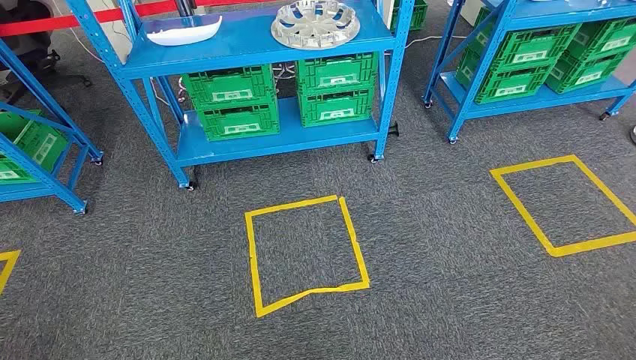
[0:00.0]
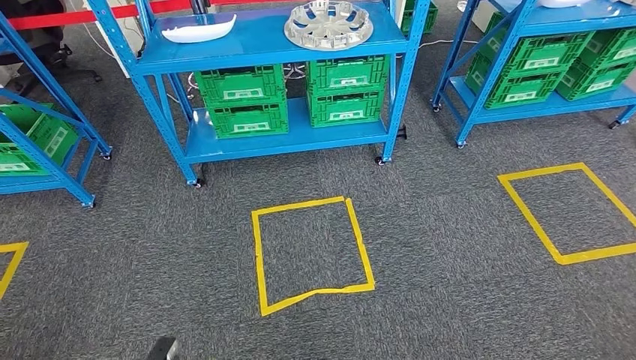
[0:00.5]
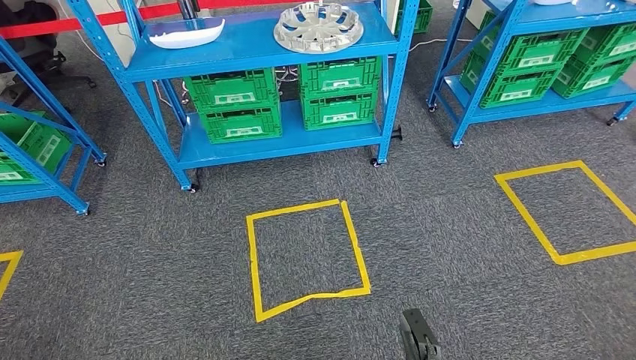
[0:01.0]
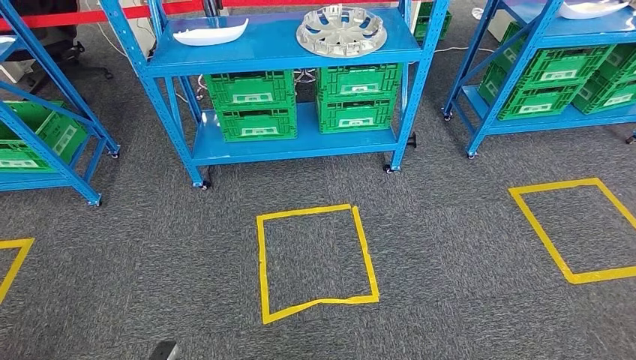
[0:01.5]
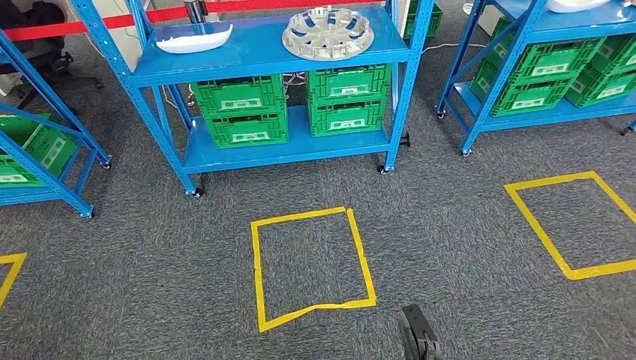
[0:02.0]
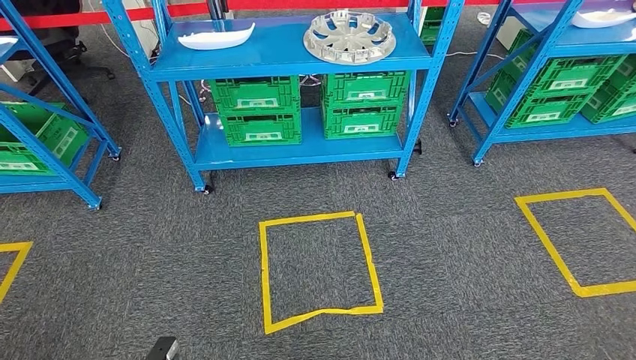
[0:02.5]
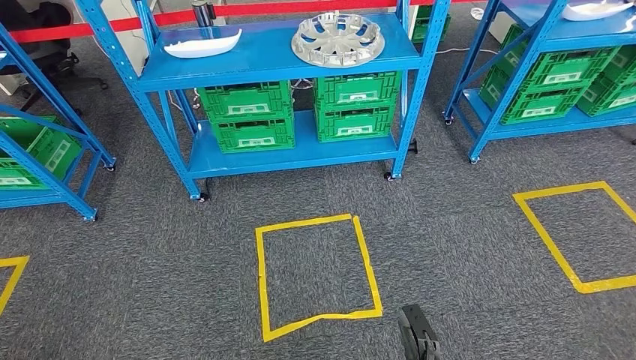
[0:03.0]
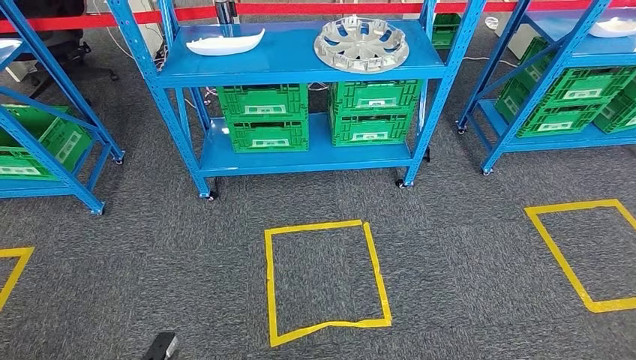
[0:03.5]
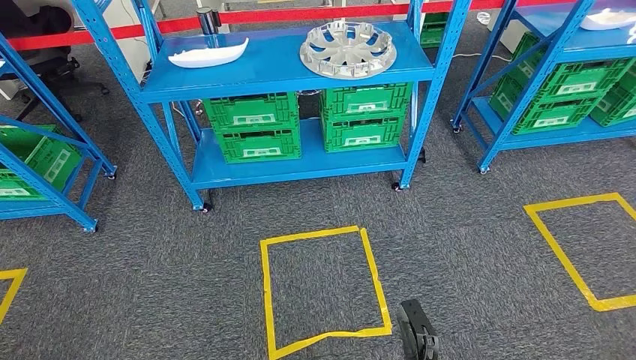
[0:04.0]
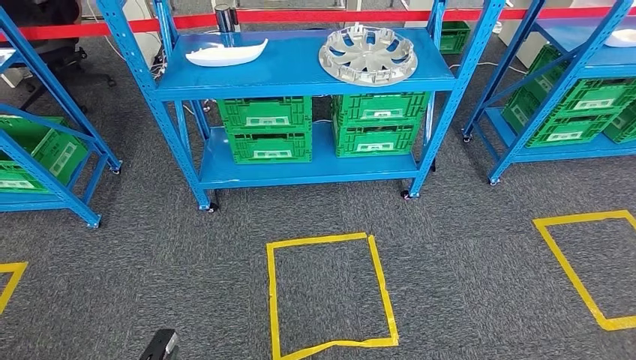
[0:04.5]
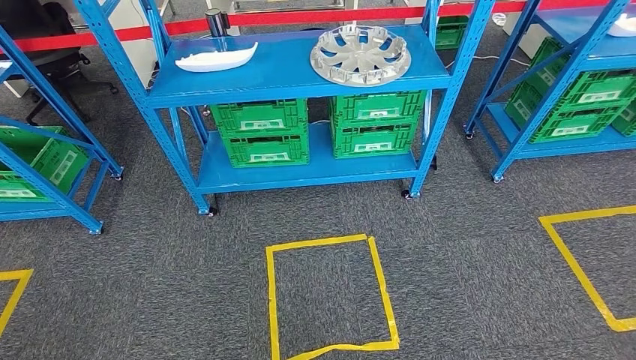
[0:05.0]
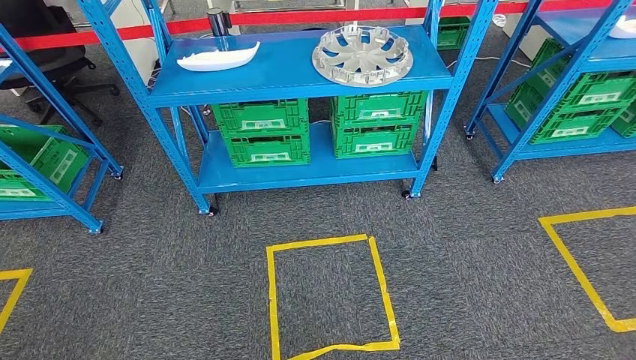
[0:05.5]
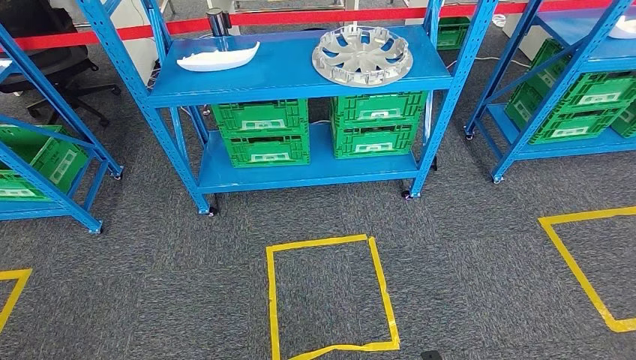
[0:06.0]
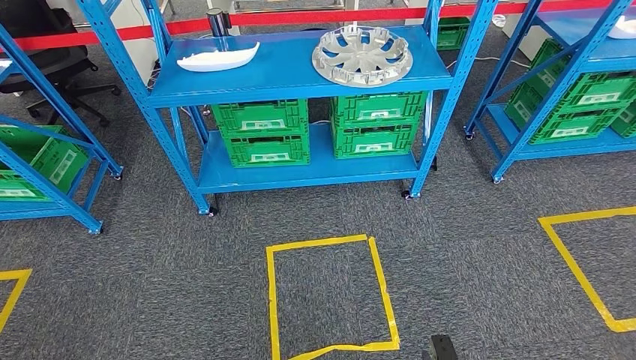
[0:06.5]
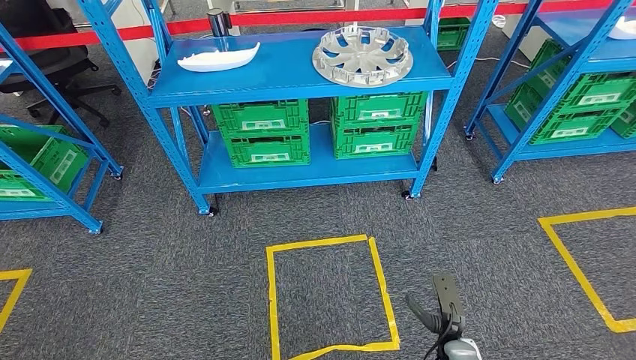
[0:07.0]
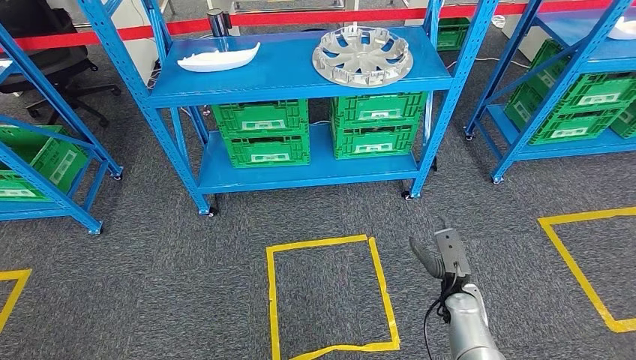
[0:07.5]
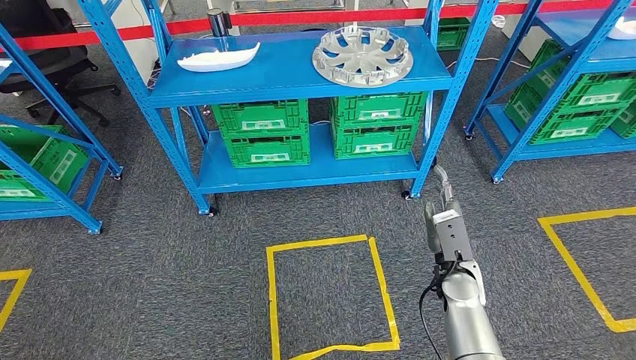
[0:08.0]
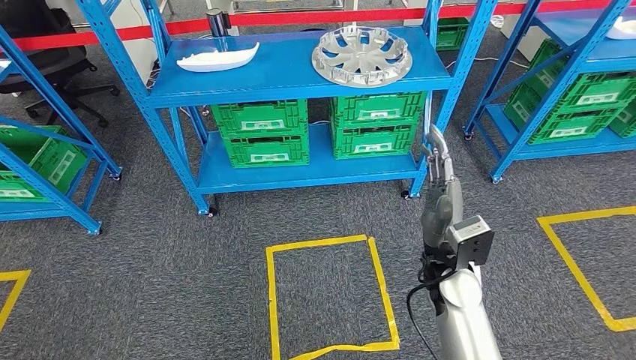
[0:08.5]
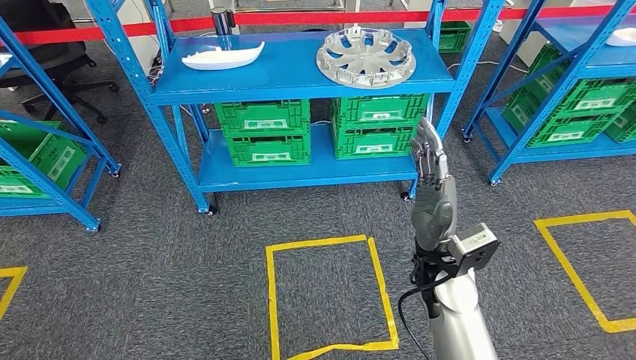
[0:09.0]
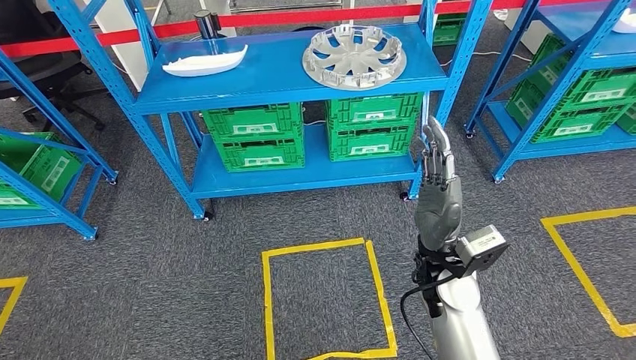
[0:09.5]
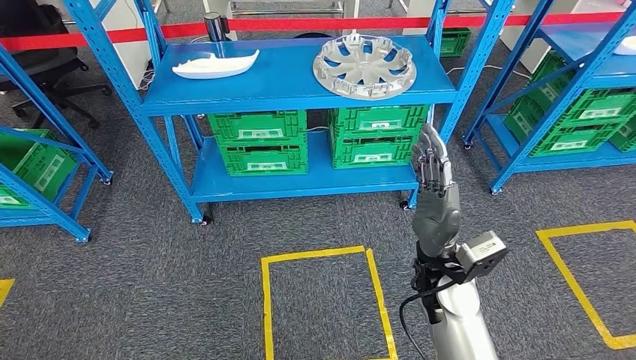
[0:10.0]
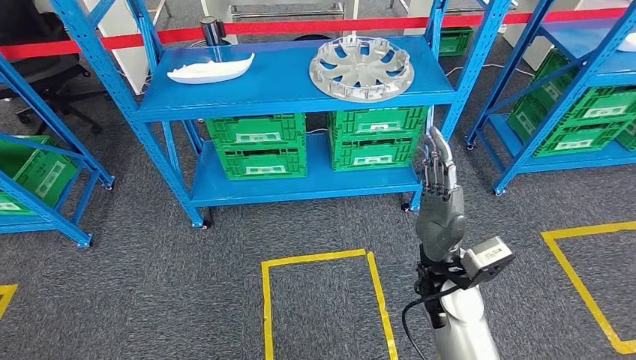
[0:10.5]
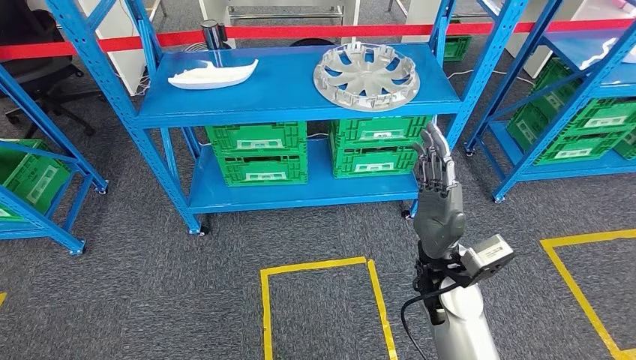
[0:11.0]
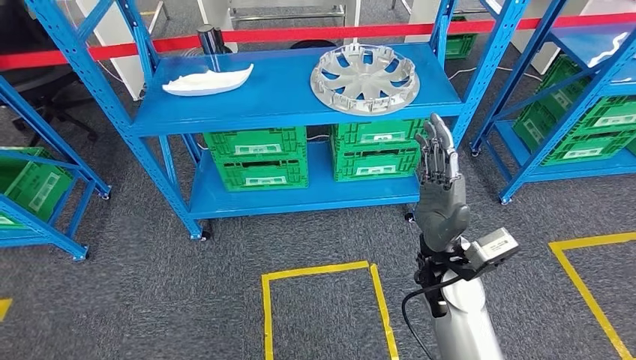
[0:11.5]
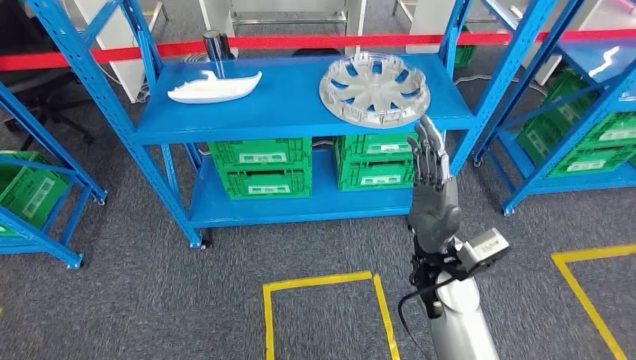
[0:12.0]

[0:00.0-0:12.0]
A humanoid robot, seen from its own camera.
0:06.0 to 0:08.0: The right hand moves forward and upward, about 30 cm.

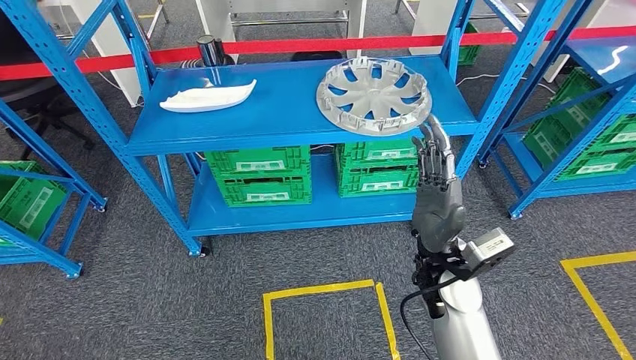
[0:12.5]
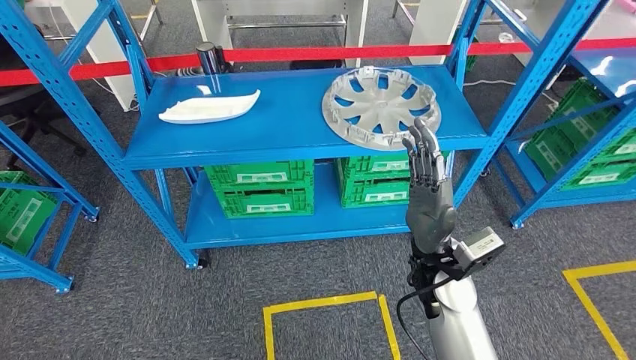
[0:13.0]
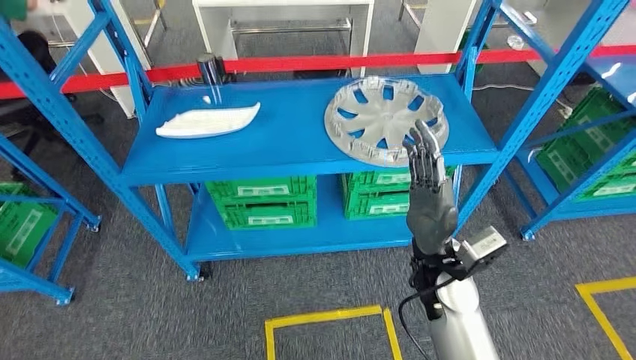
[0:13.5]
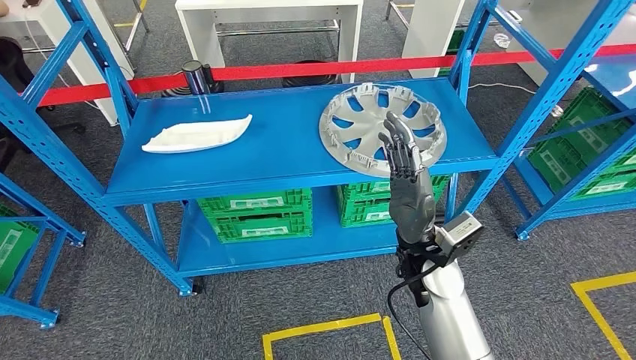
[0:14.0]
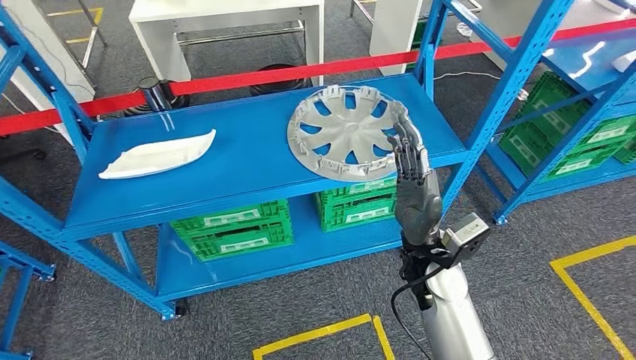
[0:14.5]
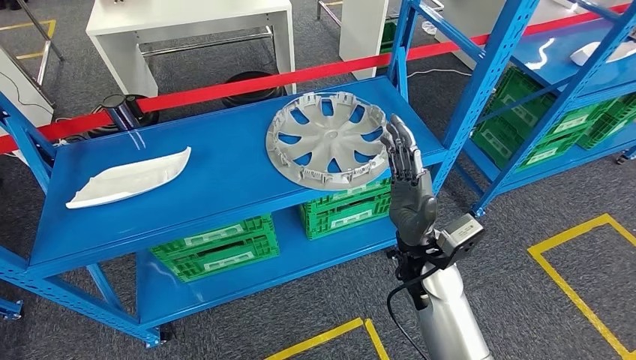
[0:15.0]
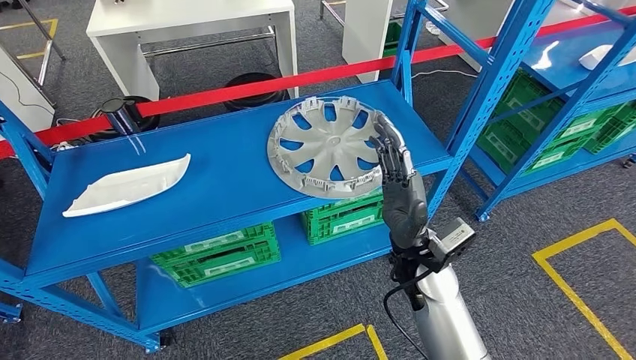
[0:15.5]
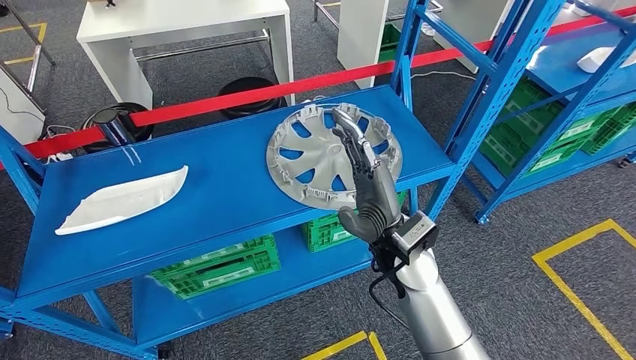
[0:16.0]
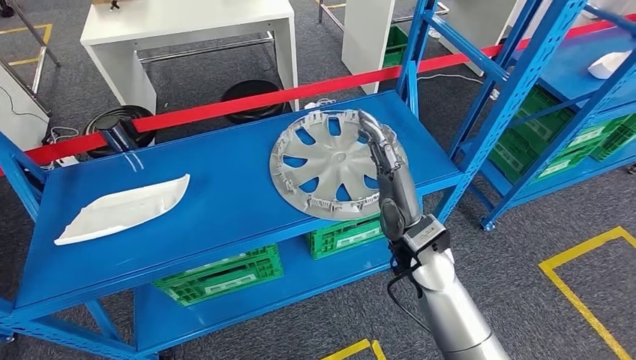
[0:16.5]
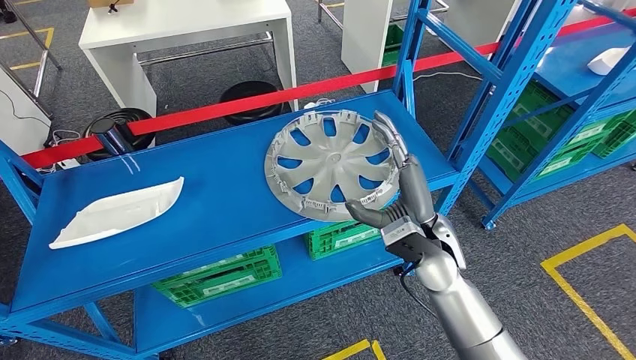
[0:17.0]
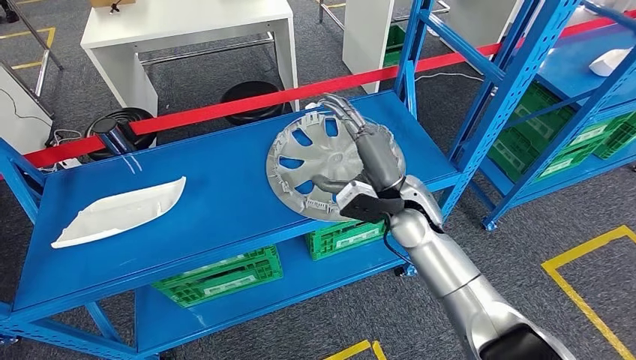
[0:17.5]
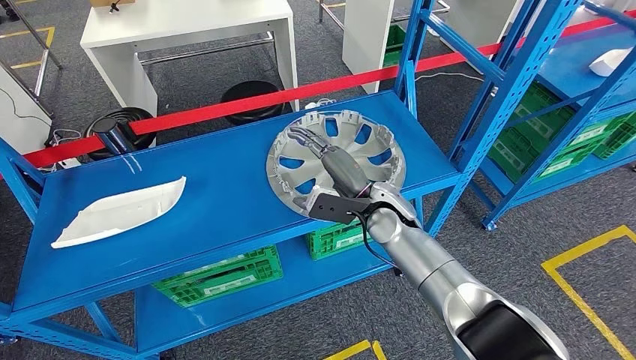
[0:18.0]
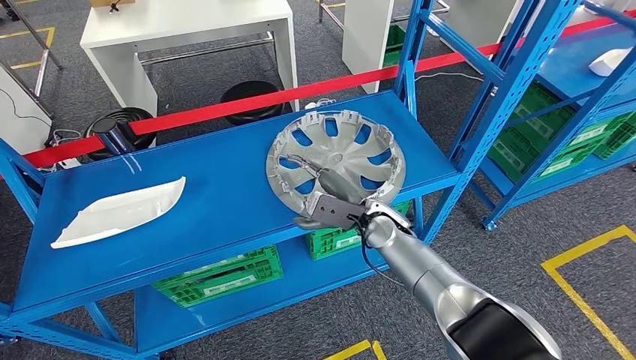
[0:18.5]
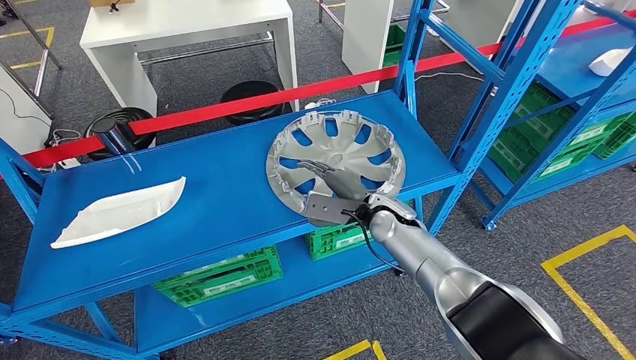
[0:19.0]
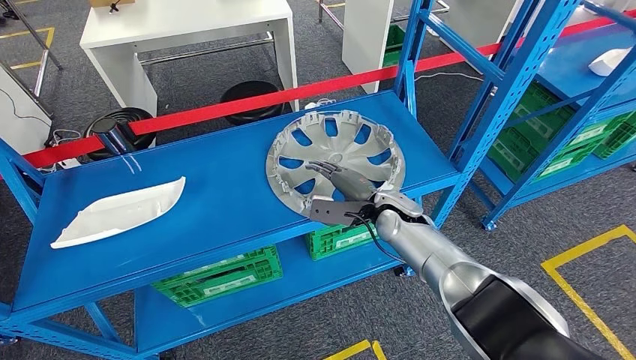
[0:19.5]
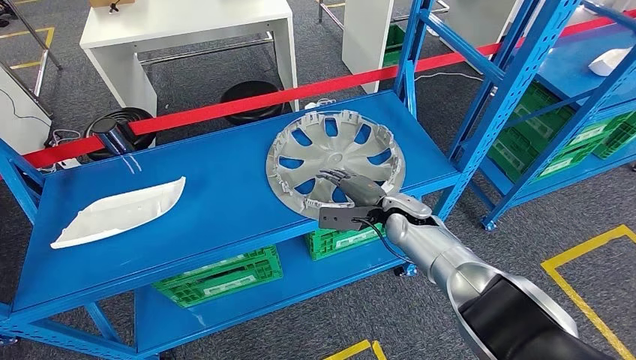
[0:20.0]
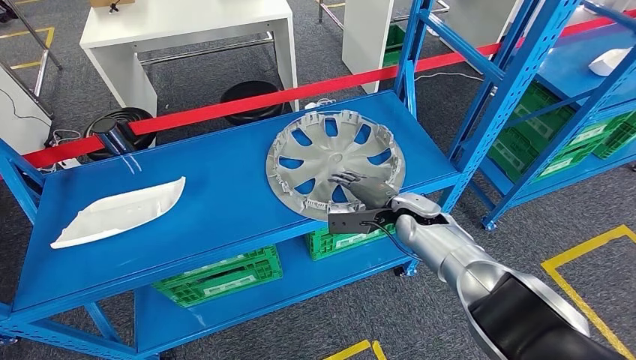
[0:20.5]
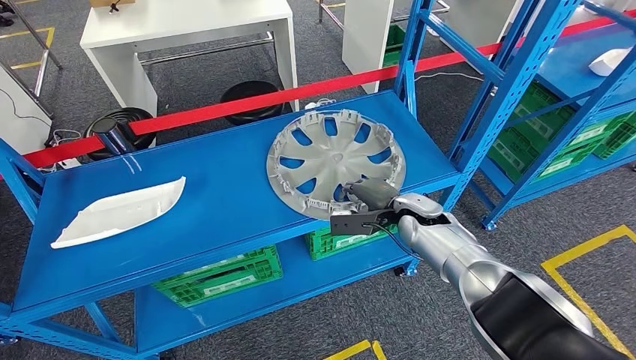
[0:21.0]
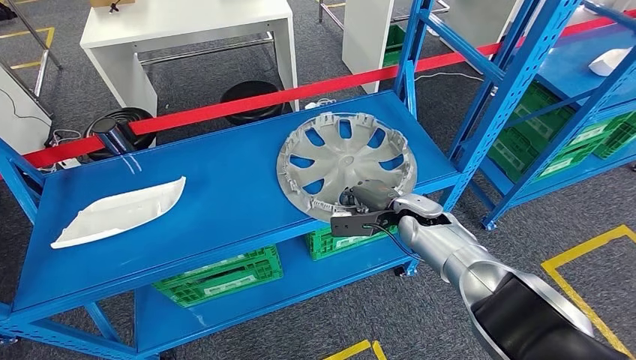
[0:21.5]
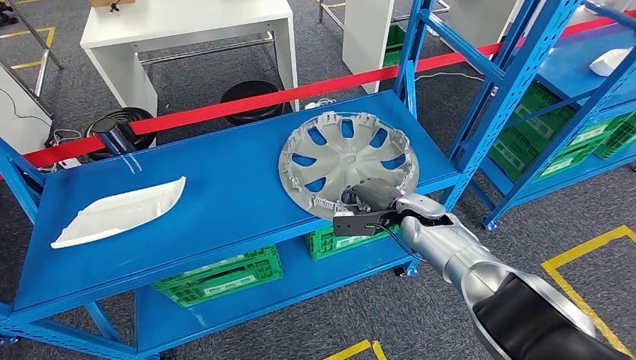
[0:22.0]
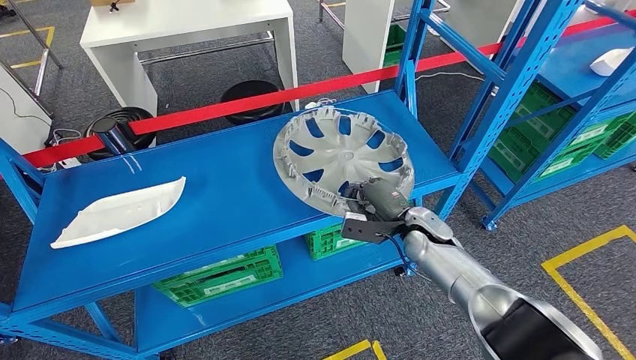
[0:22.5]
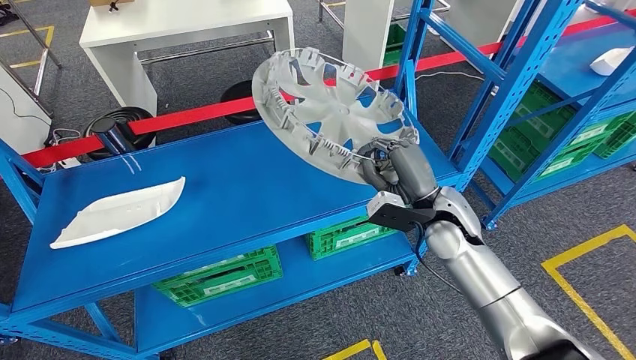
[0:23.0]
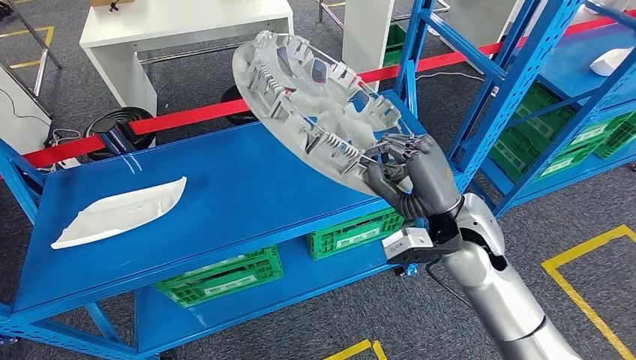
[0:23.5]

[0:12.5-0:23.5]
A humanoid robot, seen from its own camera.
Step, 0:12.5 to 0:23.0: Pick up the small parts from the shelf.
0:18.0 to 0:20.0: The right hand shifts some 5 cm downward.
0:20.0 to 0:21.5: The hands move only a little.
0:21.5 to 0:23.5: The right hand travels upward and backward by roughly 15 cm.
